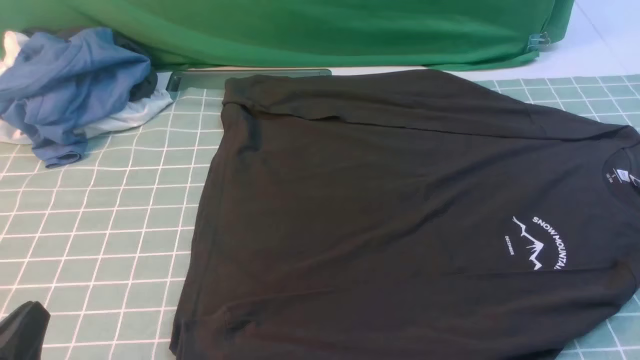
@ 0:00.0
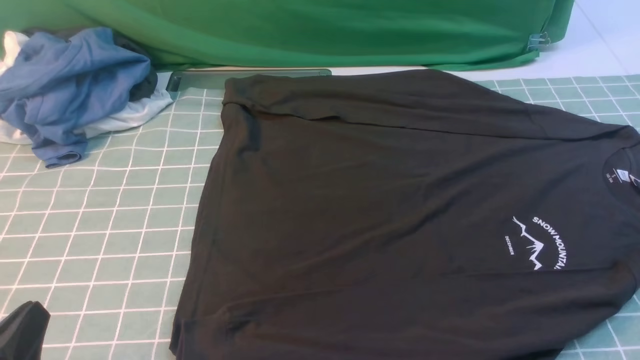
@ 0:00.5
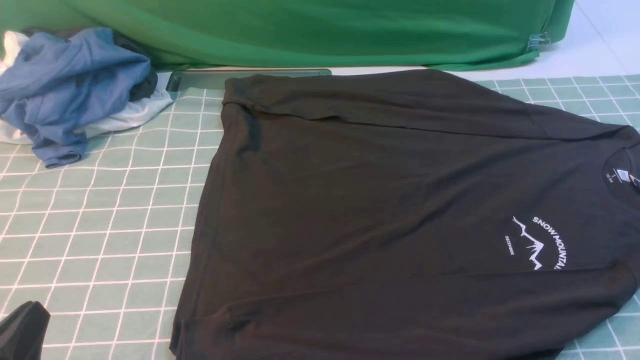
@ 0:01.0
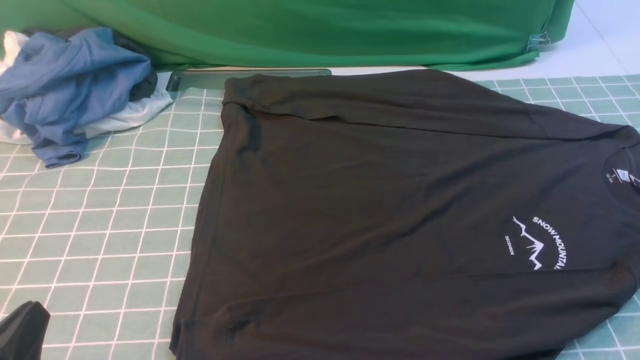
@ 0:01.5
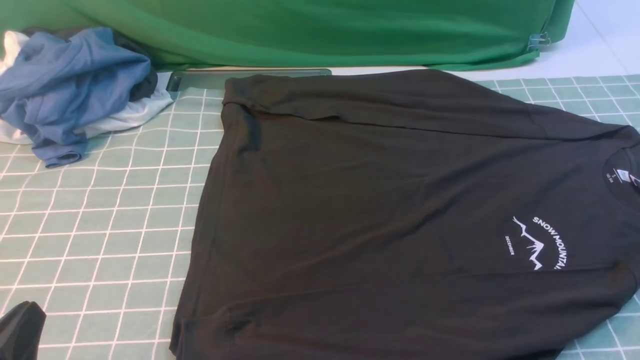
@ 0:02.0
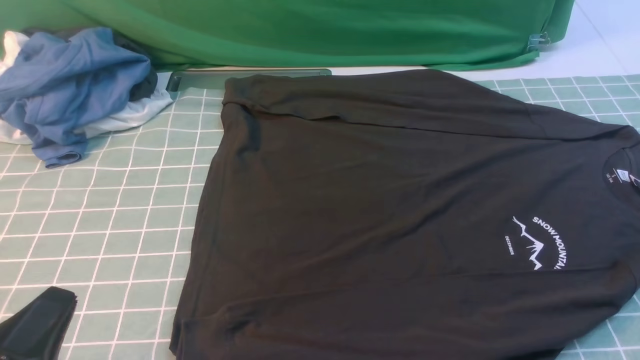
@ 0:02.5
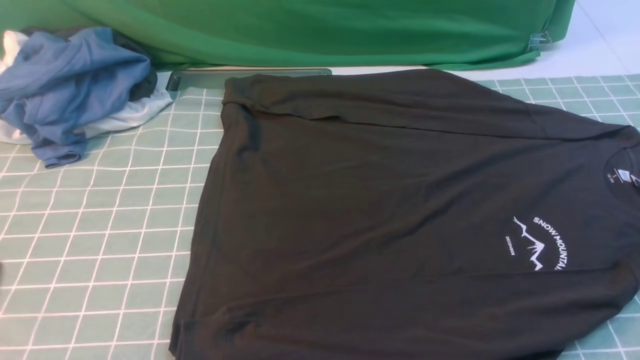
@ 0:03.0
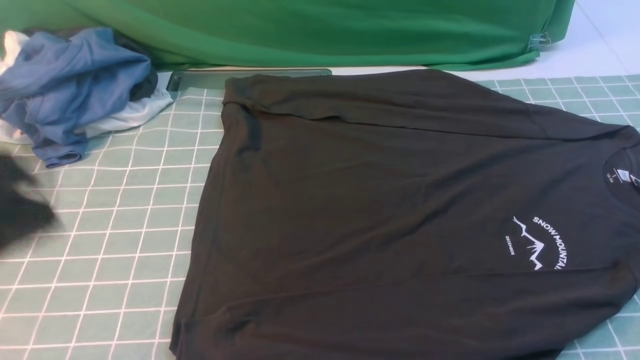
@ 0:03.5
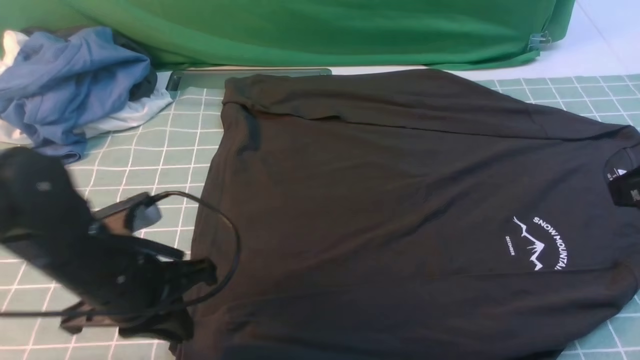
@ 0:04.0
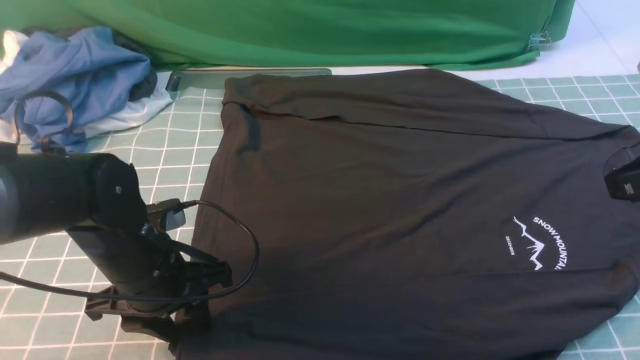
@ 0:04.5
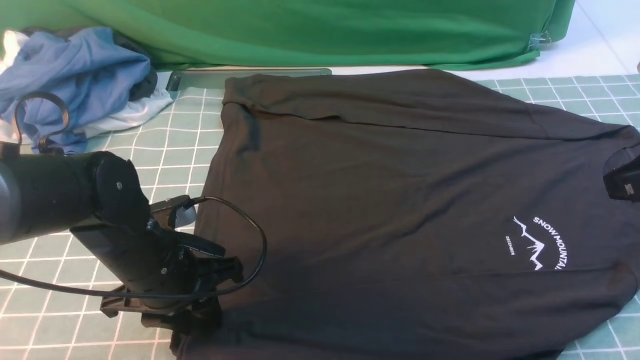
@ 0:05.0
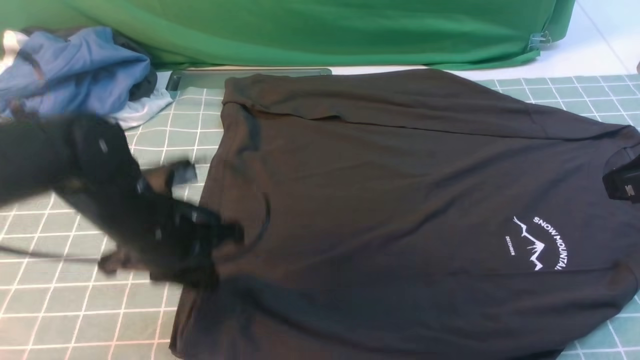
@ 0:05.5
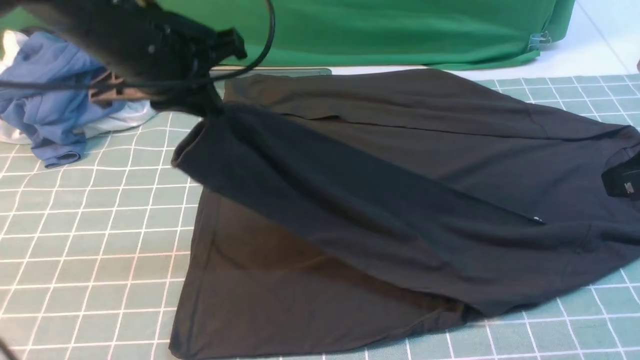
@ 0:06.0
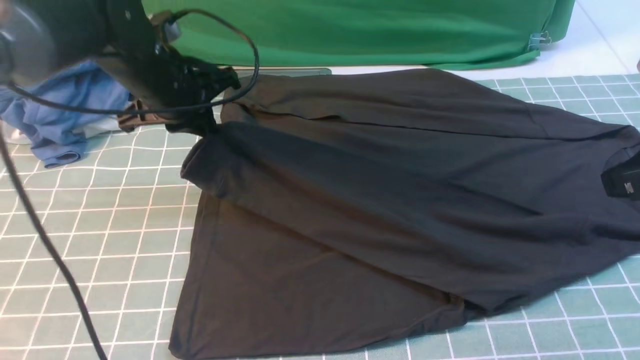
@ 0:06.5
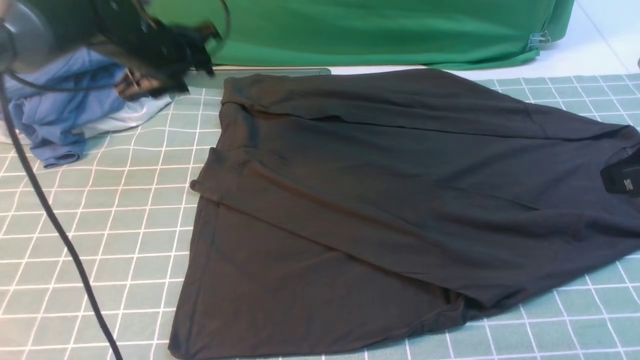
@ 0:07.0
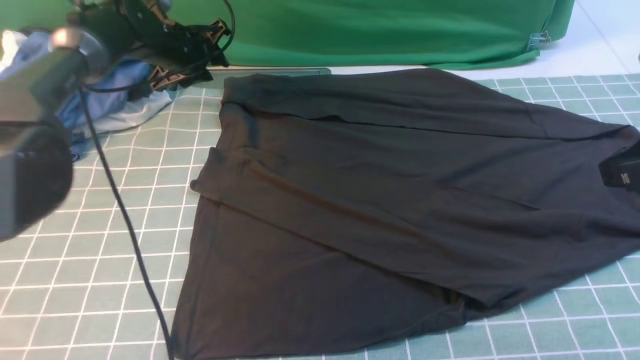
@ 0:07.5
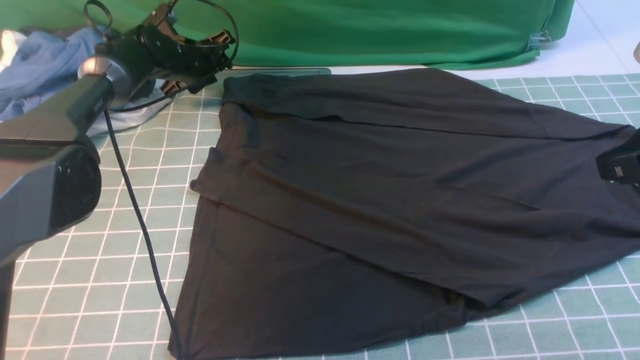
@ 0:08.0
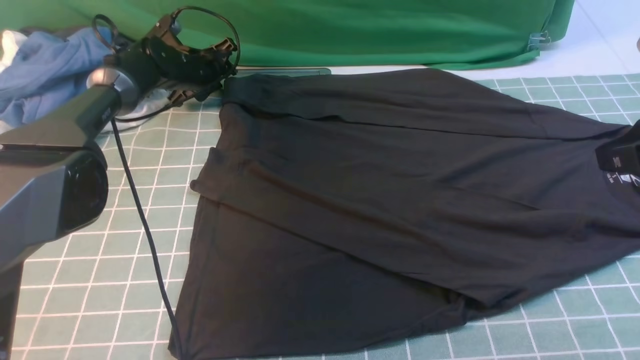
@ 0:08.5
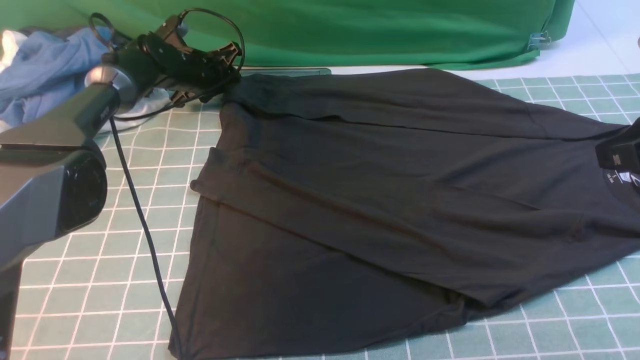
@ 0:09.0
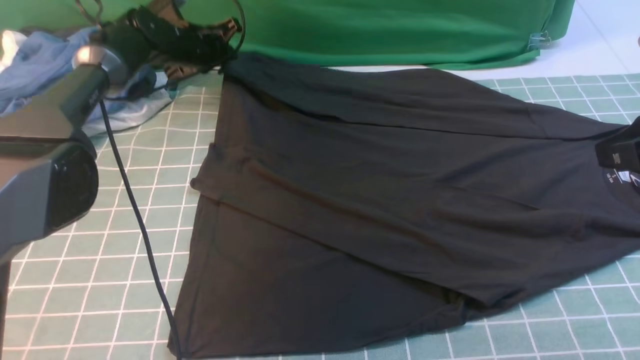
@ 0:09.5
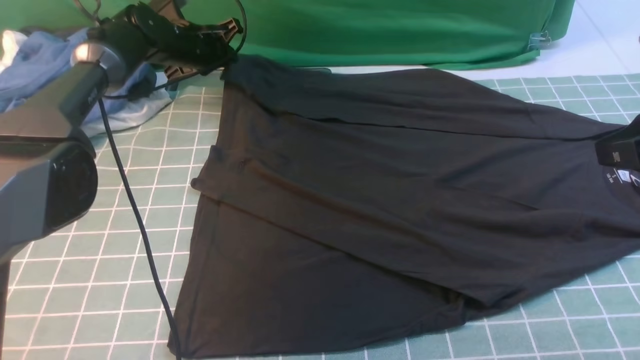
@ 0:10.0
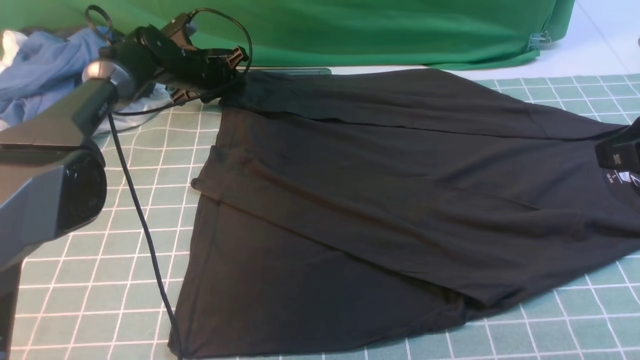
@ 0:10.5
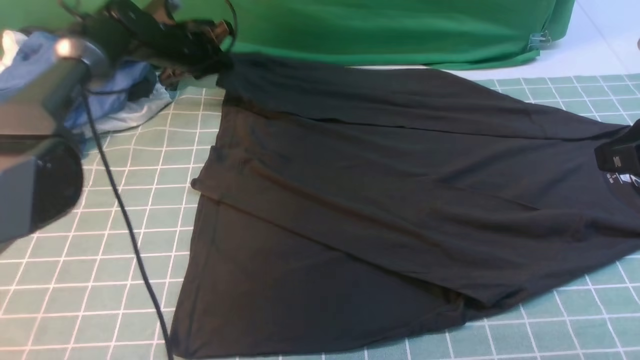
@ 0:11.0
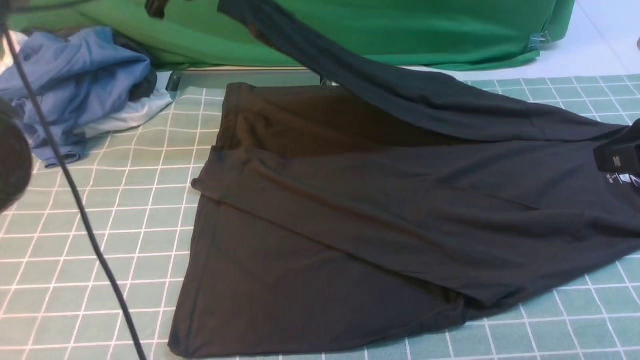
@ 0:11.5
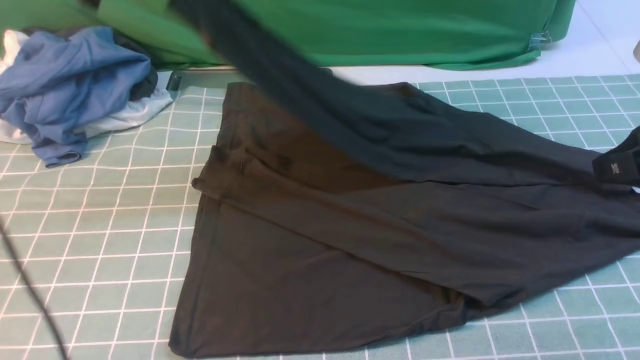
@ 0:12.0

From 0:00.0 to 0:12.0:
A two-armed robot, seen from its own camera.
Step, from 0:00.0 to 0:05.0: use the left arm to clamp the cuff closest to it.
Step, from 0:05.5 to 0:06.5: use the left arm to drag and place the cuff at the centered position on the left edge of the fabric.
Step, from 0:07.0 to 0:10.5: use the left arm to clamp the cuff farthest from it.
From 0:02.0 to 0:04.0: The left gripper is displaced forward and to the right by about 20 cm. The right gripper is displaced upward and forward by roughly 20 cm, and closes.
From 0:04.0 to 0:06.0: The left gripper heads upward and forward, covering approximately 15 cm, and opens, then closes again.
From 0:06.0 to 0:08.0: The left gripper travels forward and downward by approximately 30 cm, and opens its fingers.
From 0:08.0 to 0:10.0: The left gripper closes.
From 0:10.0 to 0:12.0: The left gripper goes about 25 cm upward and backward.

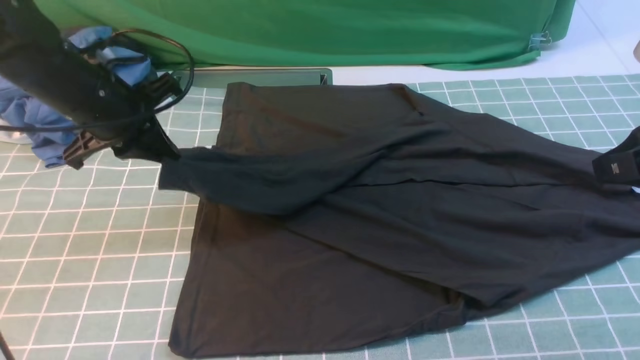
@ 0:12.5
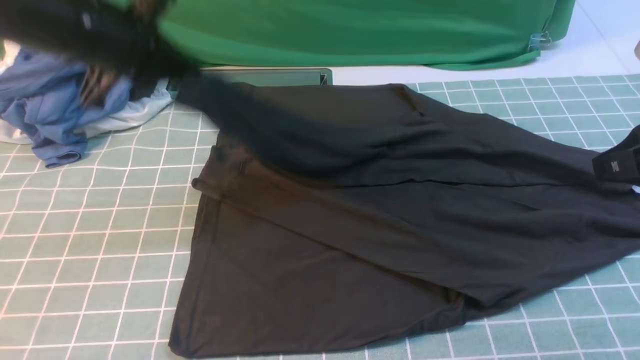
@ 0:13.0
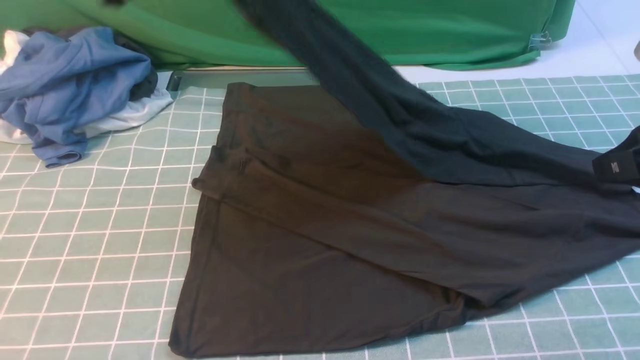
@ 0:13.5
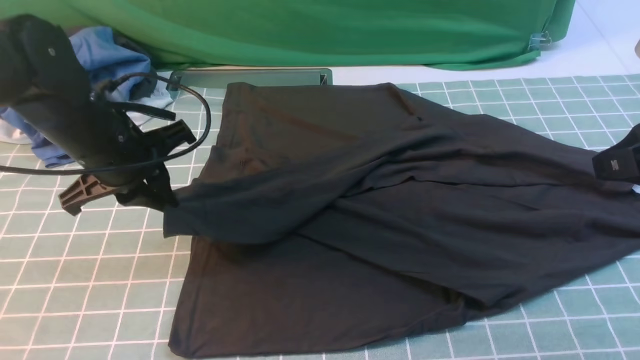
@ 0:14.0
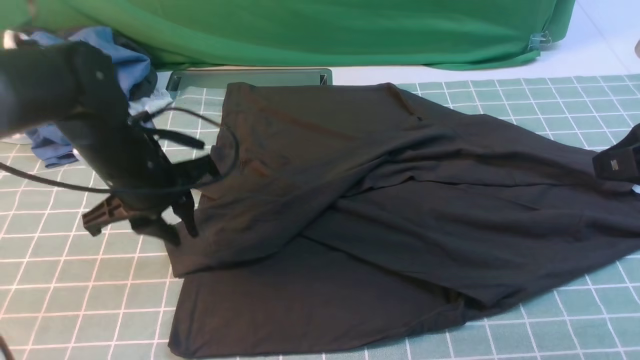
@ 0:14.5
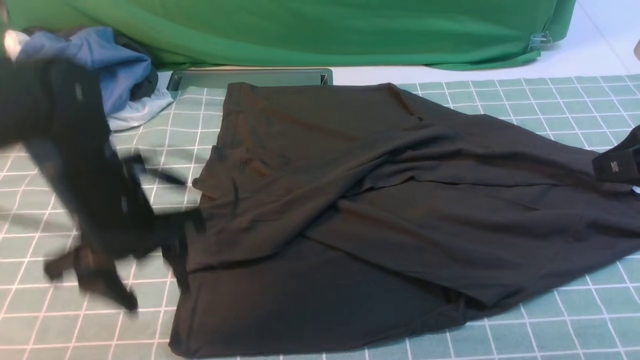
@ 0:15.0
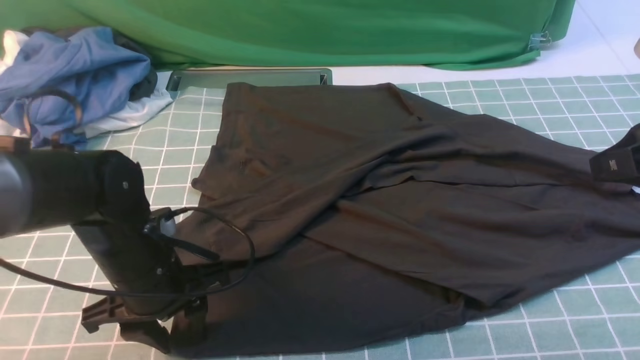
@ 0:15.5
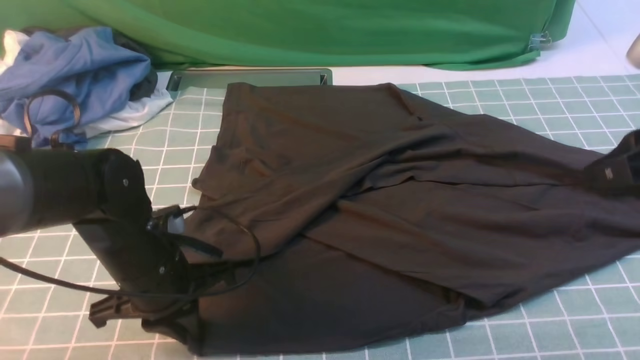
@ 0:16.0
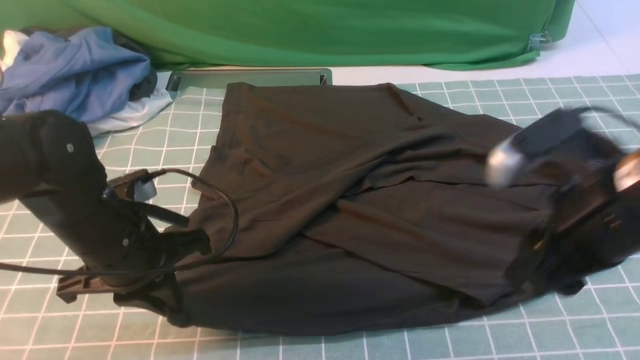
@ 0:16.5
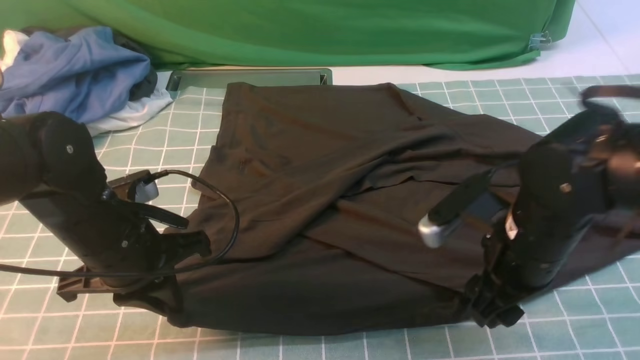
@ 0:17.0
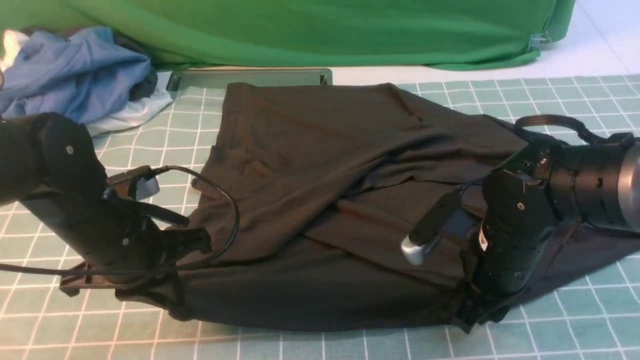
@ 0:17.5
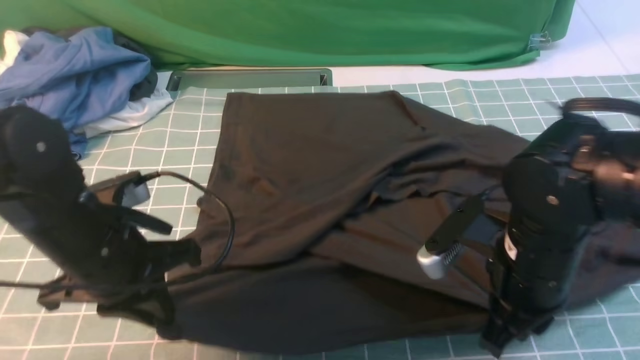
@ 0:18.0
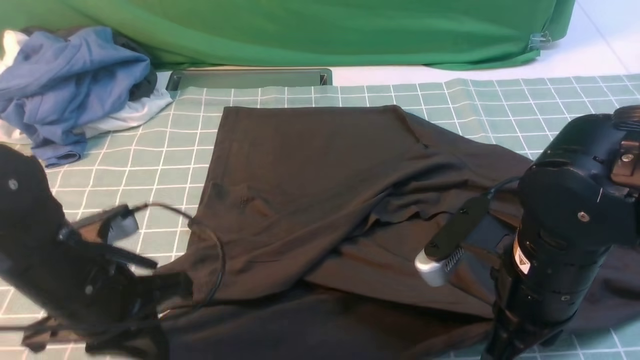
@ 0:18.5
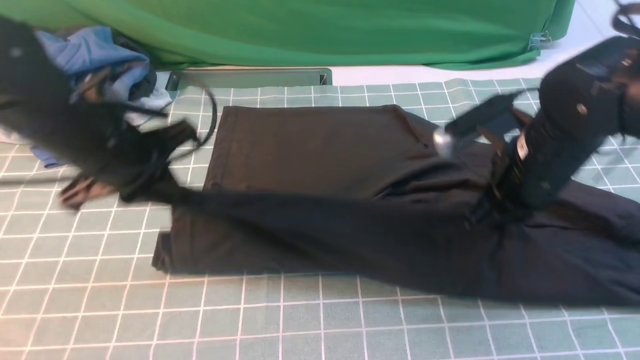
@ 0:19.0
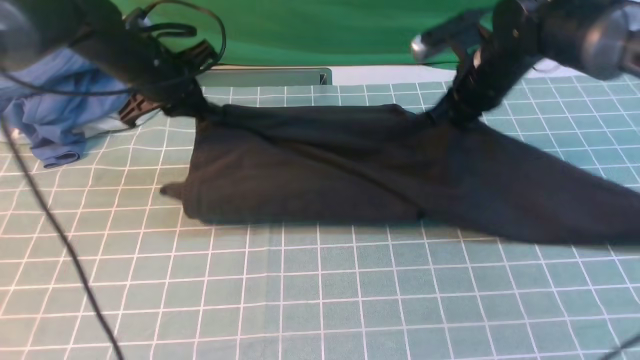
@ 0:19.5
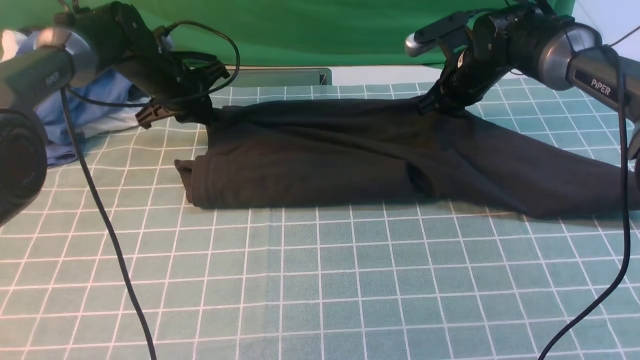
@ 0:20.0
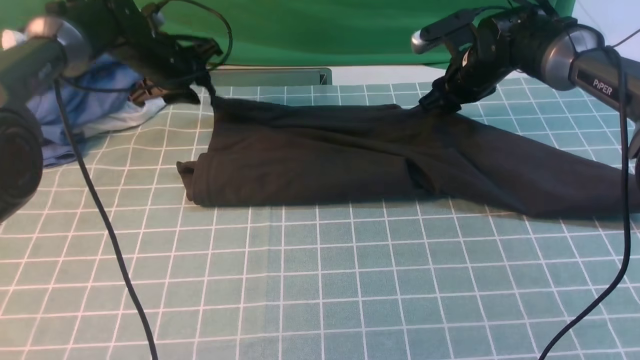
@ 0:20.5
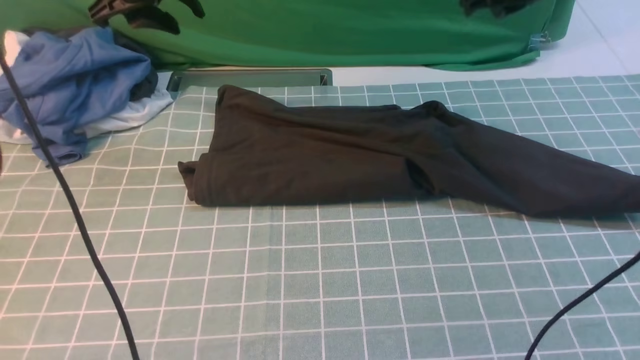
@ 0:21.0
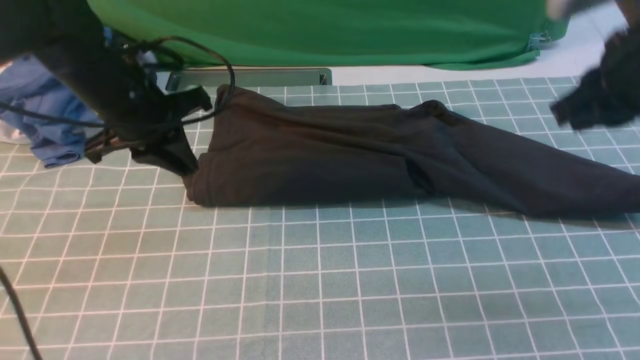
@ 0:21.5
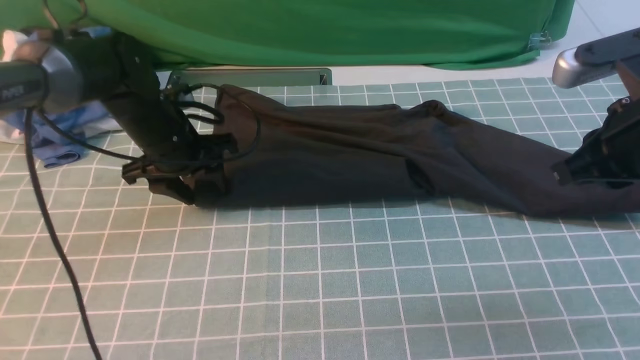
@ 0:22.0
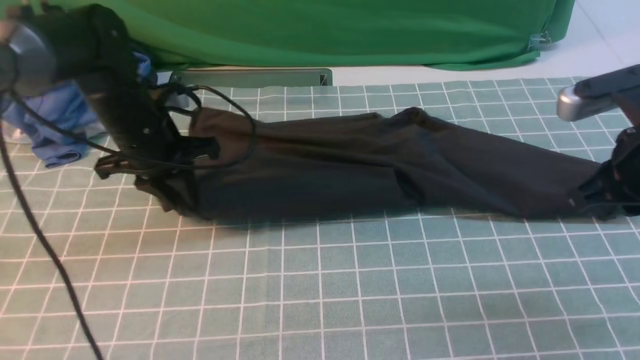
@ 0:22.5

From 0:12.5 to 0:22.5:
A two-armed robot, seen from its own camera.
Step, from 0:12.5 to 0:14.5: use the left arm to drag and drop the cuff onto the cuff closest to the left arm.
Step, from 0:15.0 to 0:17.5: use both arms simultaneously to clamp the lower edge of the clothing fabric.
Step, from 0:18.0 to 0:20.0: use both arms to drag the lower edge of the fabric forward and fold it over the upper edge.
From 0:12.5 to 0:14.5: The left gripper goes upward and returns, about 10 cm each way, and opens its fingers.
From 0:14.5 to 0:16.5: The right gripper travels to the left and downward by approximately 10 cm; the left gripper is displaced backward by approximately 10 cm, and closes.
From 0:16.5 to 0:18.5: The right gripper closes up; the left gripper moves approximately 5 cm.
From 0:18.5 to 0:20.5: Both grippers move forward, approximately 30 cm. The right gripper opens, while the left gripper opens.
From 0:20.5 to 0:22.5: The left gripper goes about 15 cm backward, goes upward and returns, roughly 10 cm each way, and closes. Meanwhile the right gripper is displaced backward by roughly 25 cm, and closes.
